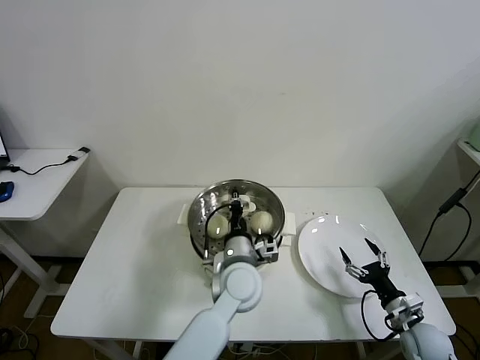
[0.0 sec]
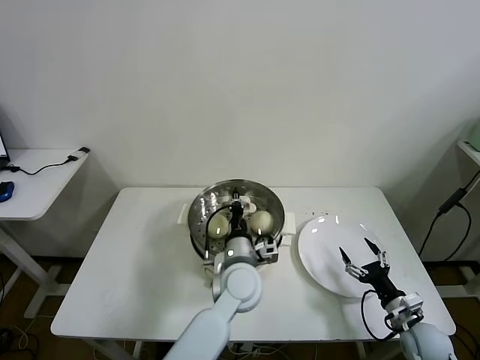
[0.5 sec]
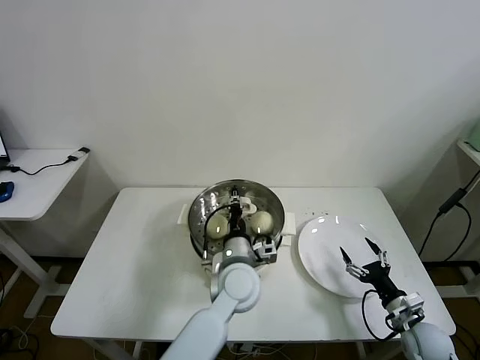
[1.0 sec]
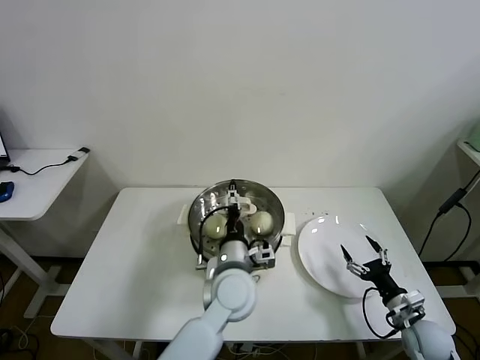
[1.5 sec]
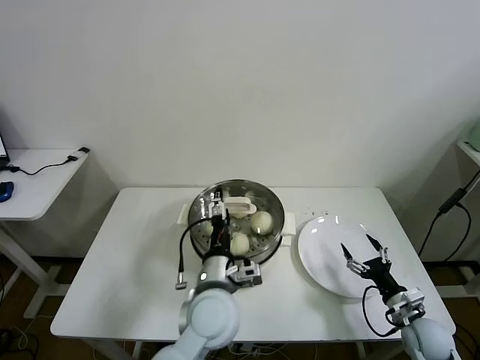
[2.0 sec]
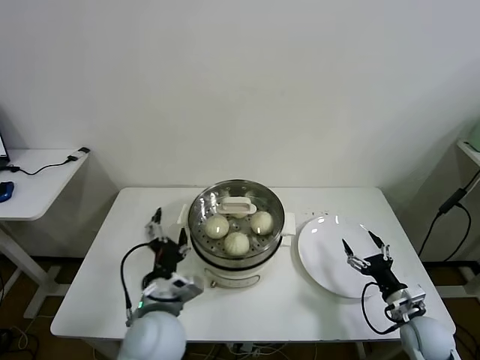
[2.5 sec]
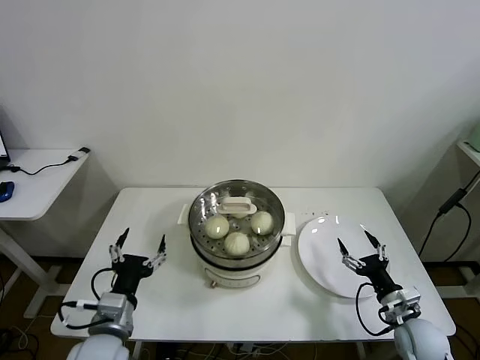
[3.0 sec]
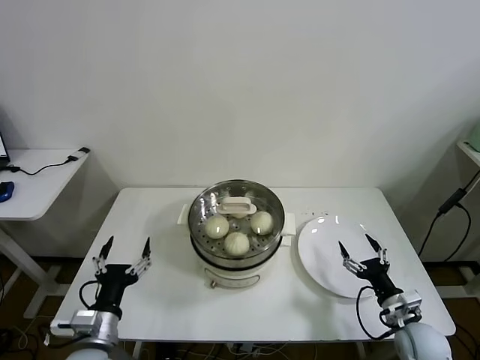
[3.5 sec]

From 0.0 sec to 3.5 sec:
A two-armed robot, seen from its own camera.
Task of the whole recording: take steamed baozi put them in steamer then cover it.
From 0.0 sec to 2.0 sec: The left gripper goes roughly 5 cm backward, and opens.
From 2.0 sec to 3.5 sec: The left gripper heads to the left and backward, covering approximately 25 cm.
